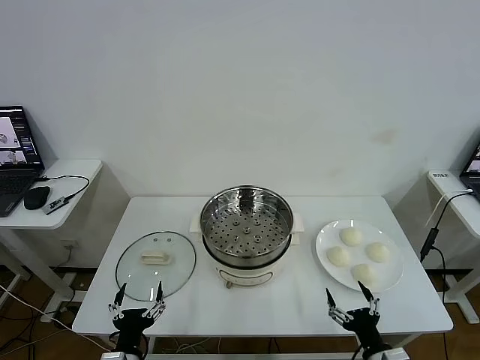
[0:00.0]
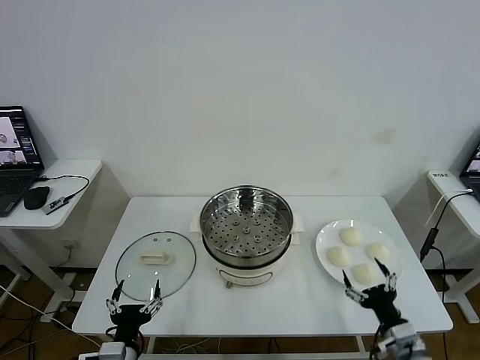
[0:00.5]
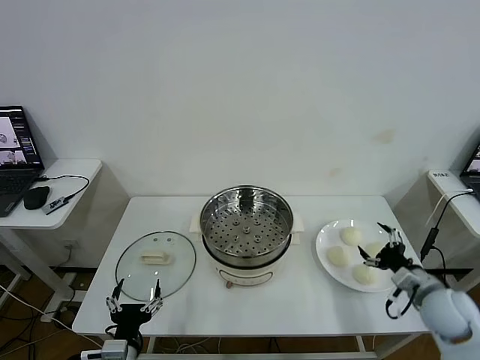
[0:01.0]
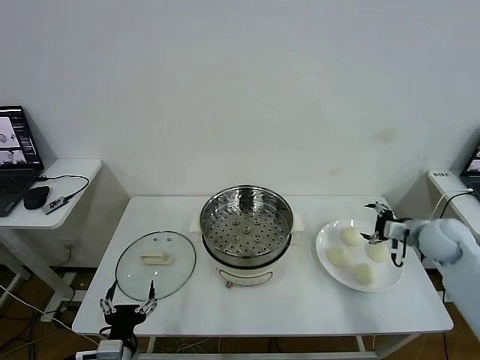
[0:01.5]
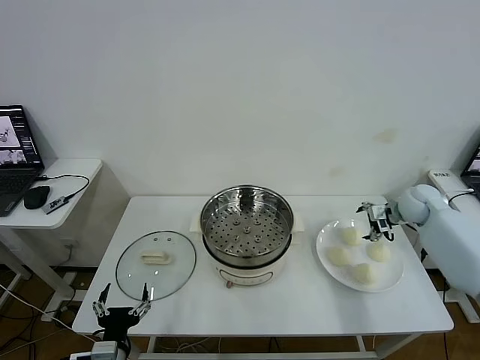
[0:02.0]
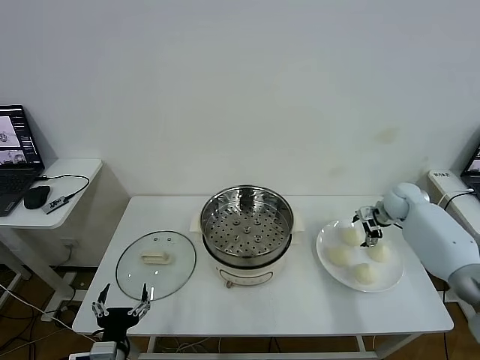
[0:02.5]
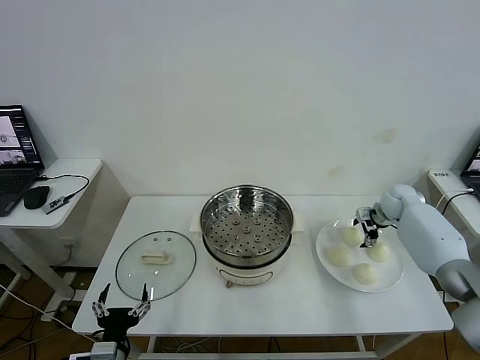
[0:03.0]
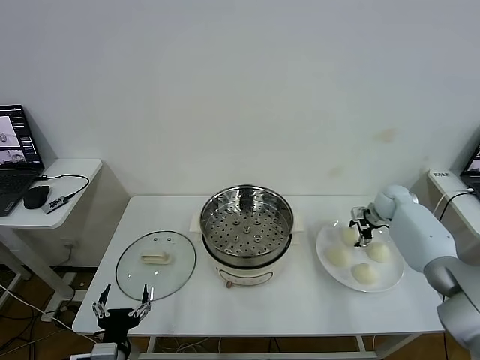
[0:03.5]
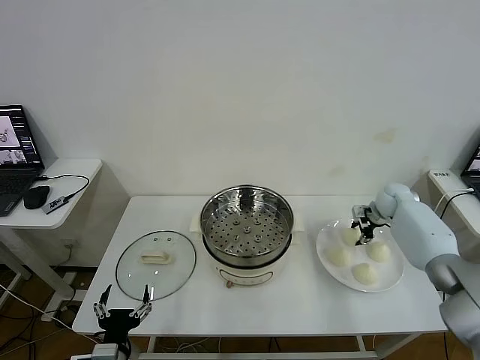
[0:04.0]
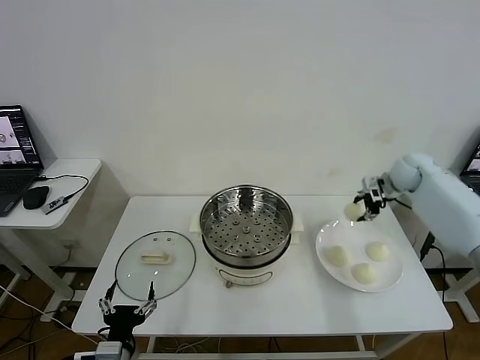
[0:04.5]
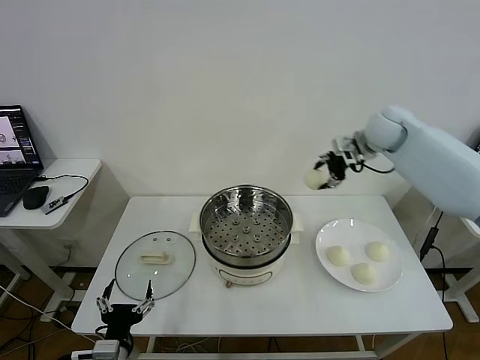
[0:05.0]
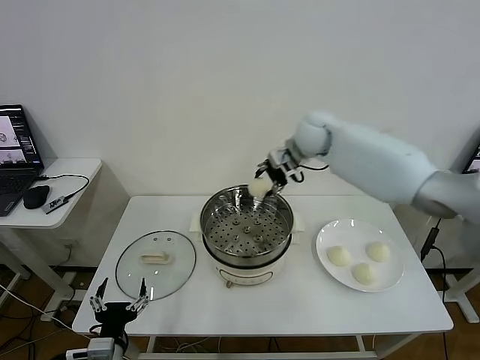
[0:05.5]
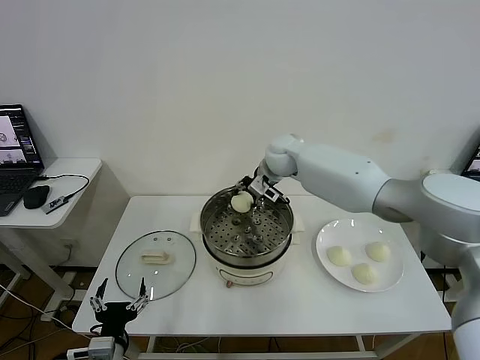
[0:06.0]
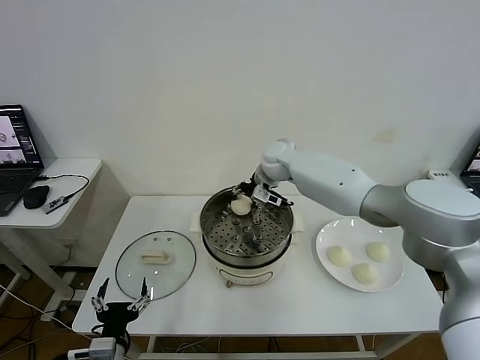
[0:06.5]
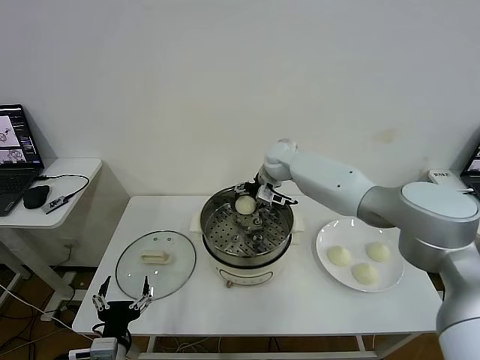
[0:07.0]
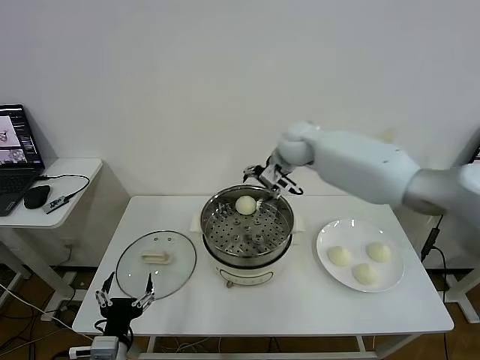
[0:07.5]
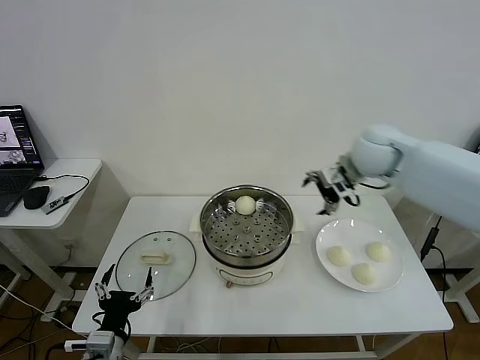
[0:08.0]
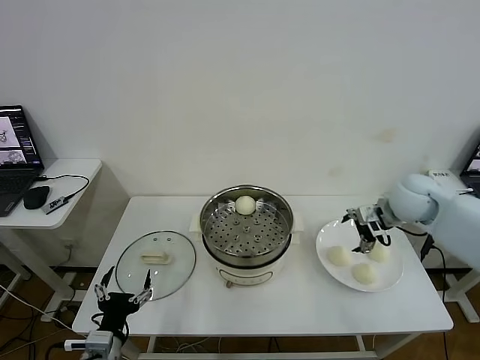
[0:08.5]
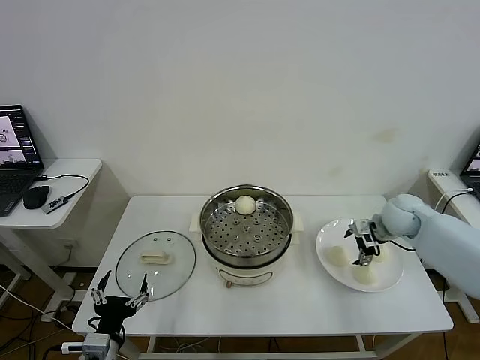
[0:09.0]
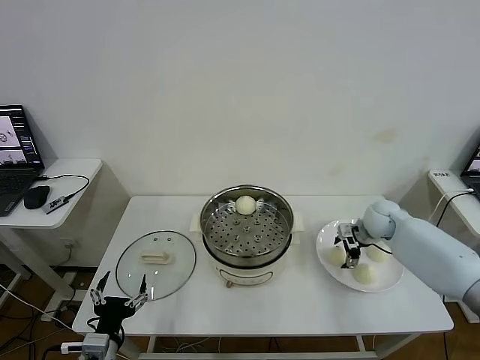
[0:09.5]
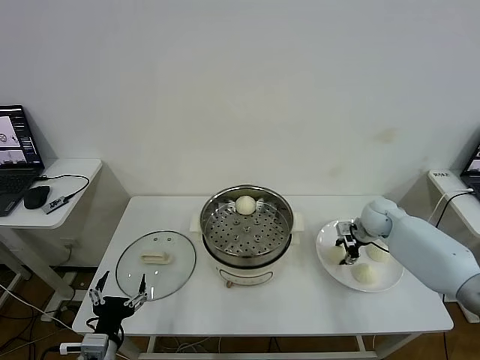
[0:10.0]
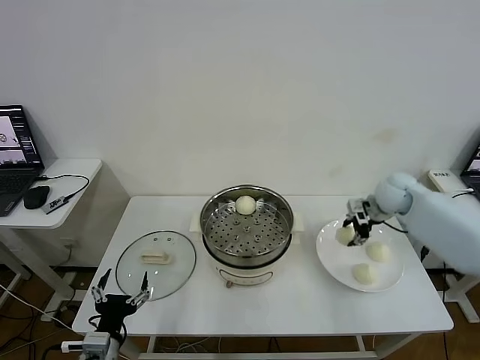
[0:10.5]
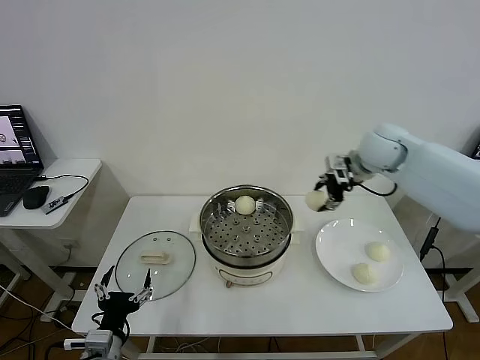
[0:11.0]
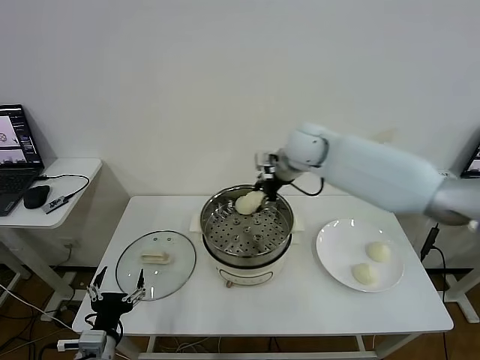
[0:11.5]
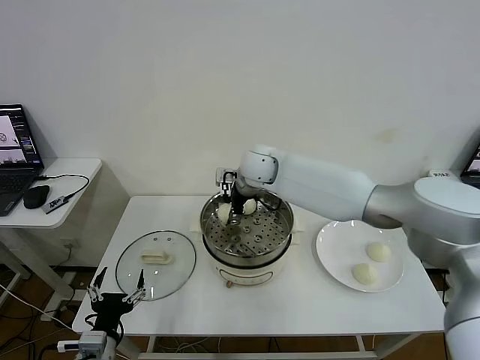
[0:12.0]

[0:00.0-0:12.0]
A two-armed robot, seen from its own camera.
Task of the whole recording: take steamed baozi put them in steamer then cover it.
Step, 0.0 to 3.5 s: Grasp the baozi in the plate with right gripper.
Step, 4.0 to 7.0 s: Place the baozi on the steamer with right gripper.
Step, 7.5 to 10.0 s: Grasp the baozi in the plate with right gripper.
2.0 to 4.0 s: The right gripper closes up.
4.0 to 6.0 s: The right gripper moves to the left, about 35 cm.
6.0 to 8.0 s: The right gripper moves to the right and backward, about 25 cm, and opens its fingers.
8.0 to 10.0 s: The right gripper moves downward, roughly 20 cm, and closes.
10.0 to 12.0 s: The right gripper moves to the left and upward, some 35 cm.

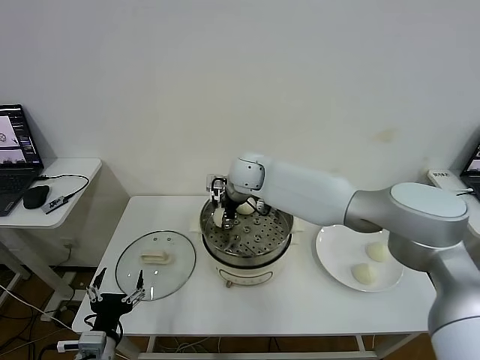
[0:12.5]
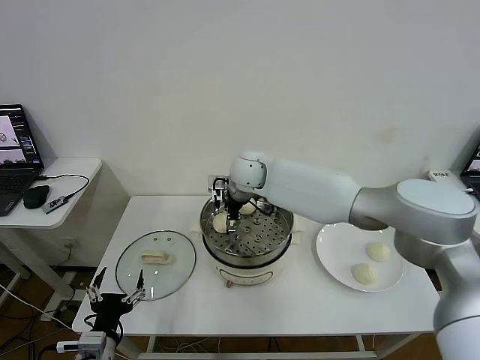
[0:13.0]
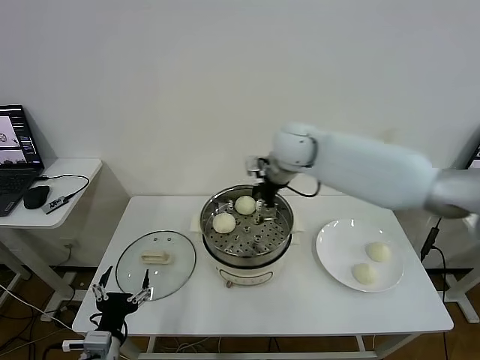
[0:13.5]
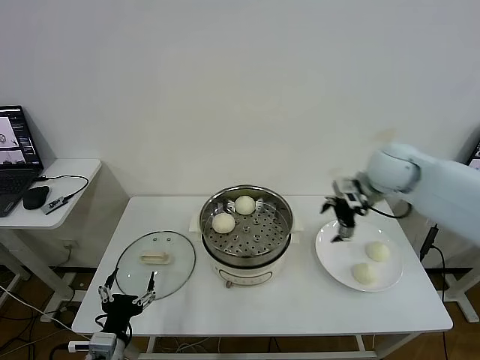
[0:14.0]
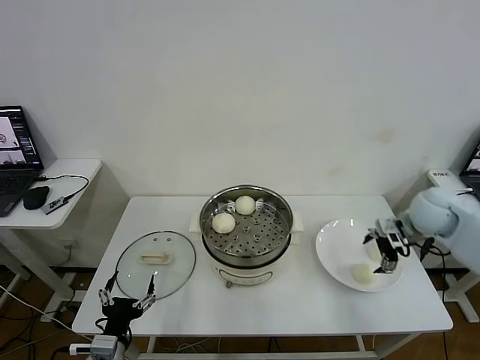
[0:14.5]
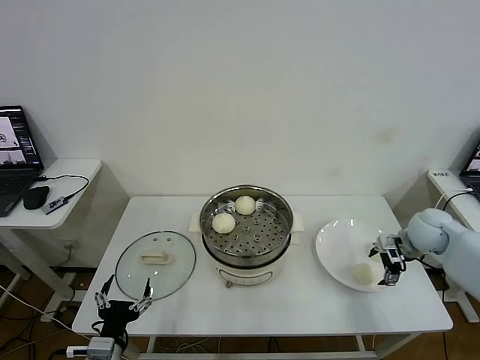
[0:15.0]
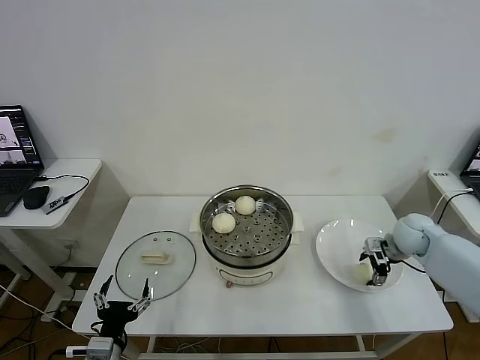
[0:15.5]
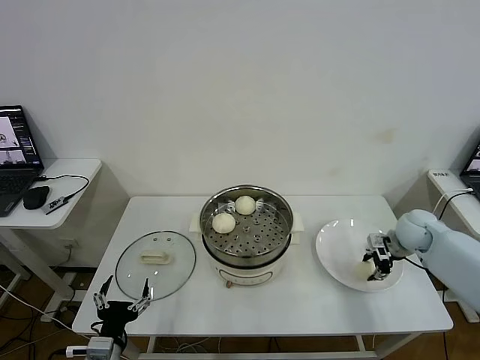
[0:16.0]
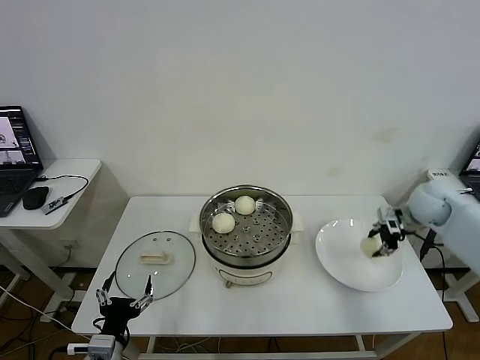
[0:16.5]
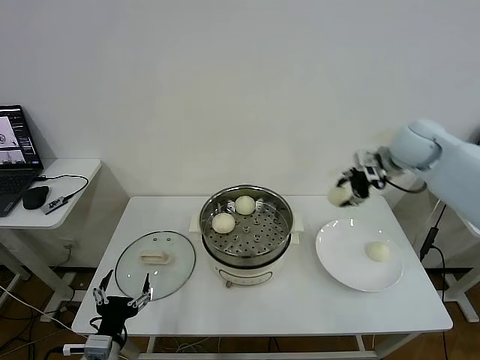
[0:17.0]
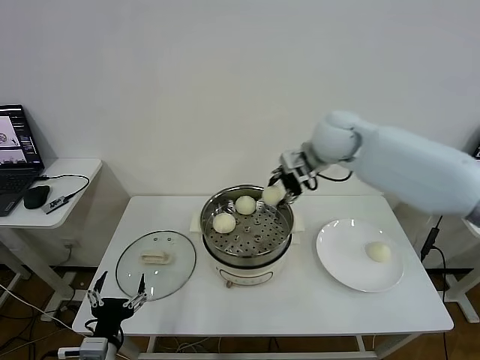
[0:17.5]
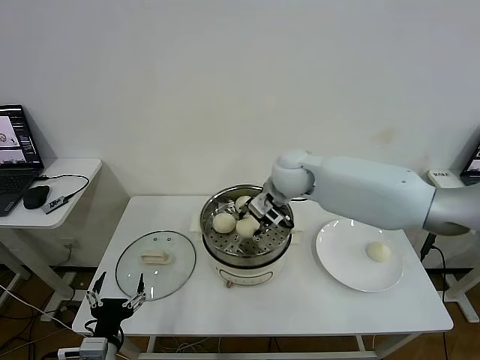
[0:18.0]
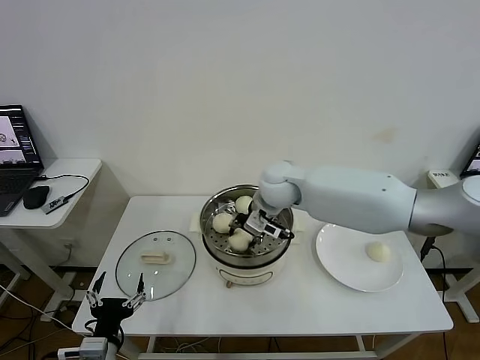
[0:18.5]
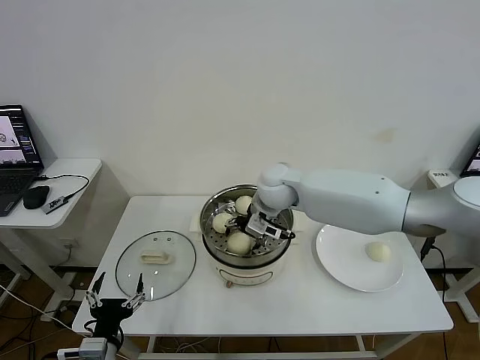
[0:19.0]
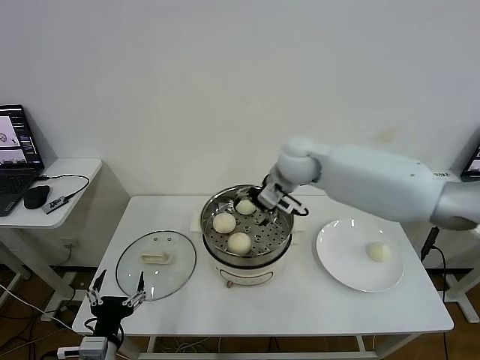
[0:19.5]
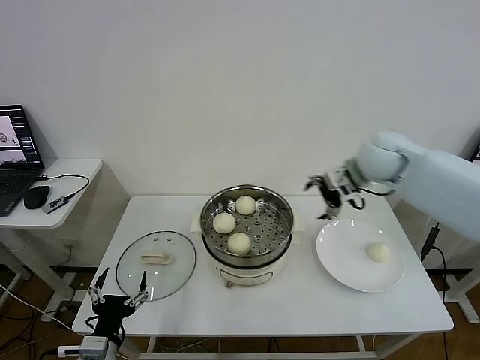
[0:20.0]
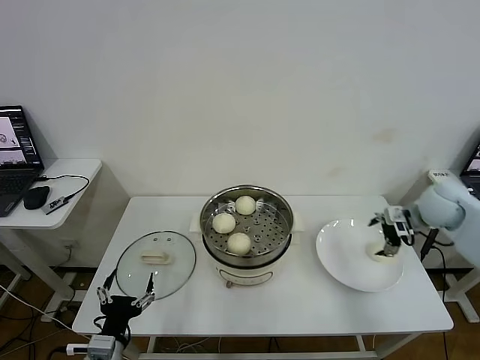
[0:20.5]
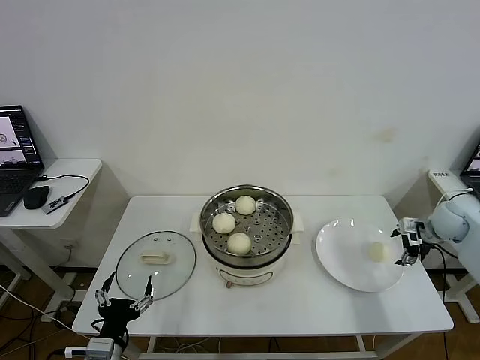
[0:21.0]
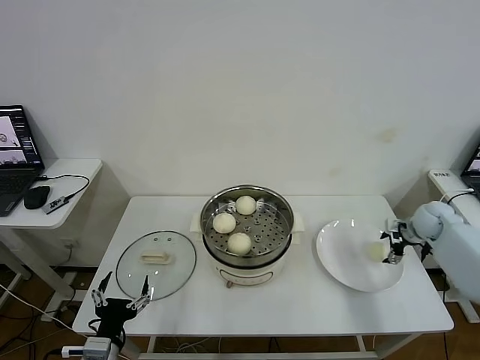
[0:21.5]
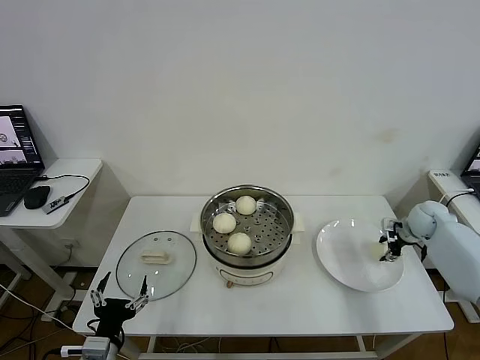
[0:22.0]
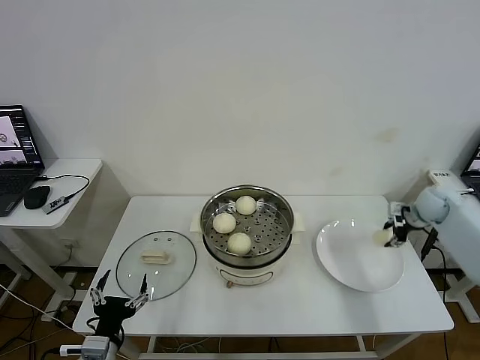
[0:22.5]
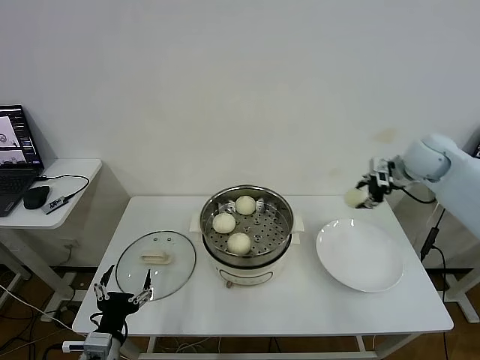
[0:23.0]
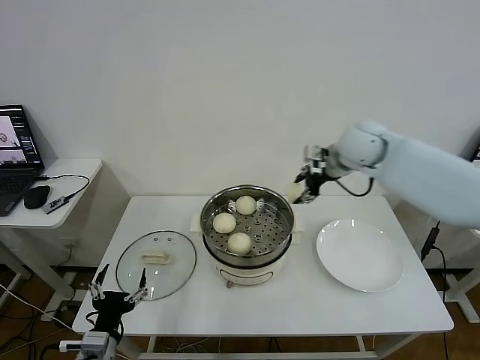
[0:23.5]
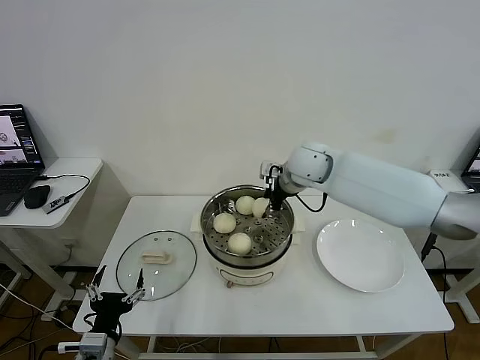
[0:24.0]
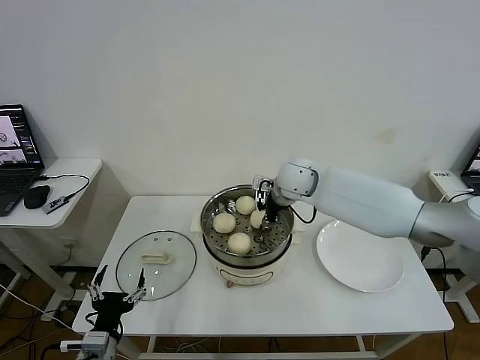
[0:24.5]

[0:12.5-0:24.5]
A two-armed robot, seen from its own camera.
Task of the whole recording: take steamed baozi put them in steamer then cover it.
Step, 13.0 to 15.5 s: Grasp the baozi in the plate with right gripper.
Step, 16.5 to 19.0 s: Place the baozi on the steamer with right gripper.
Step, 19.5 to 22.0 s: Grasp the baozi in the plate with right gripper.
12.5 to 14.5 s: The right gripper moves to the right, roughly 40 cm, and opens its fingers.
14.5 to 16.5 s: The right gripper reaches some 10 cm downward, then returns, and closes.
16.5 to 18.5 s: The right gripper moves to the left, some 35 cm.
18.5 to 20.5 s: The right gripper shifts some 35 cm to the right, and opens.
20.5 to 22.5 s: The right gripper travels forward by some 5 cm, goes downward and returns, about 10 cm each way, and closes.
22.5 to 24.5 s: The right gripper heads to the left, covering roughly 35 cm.

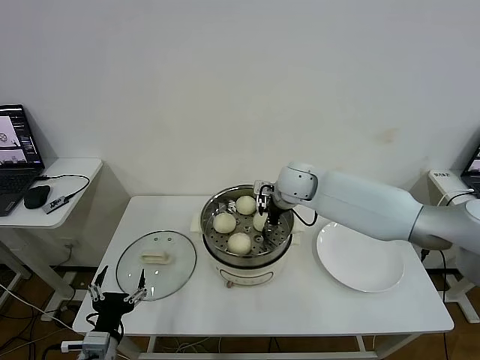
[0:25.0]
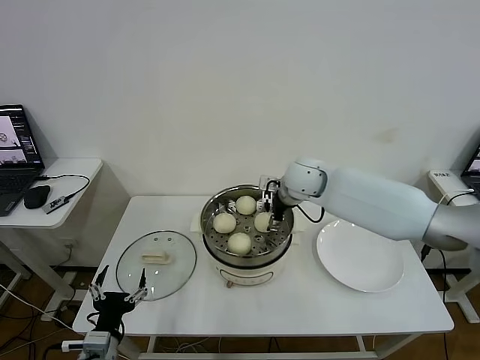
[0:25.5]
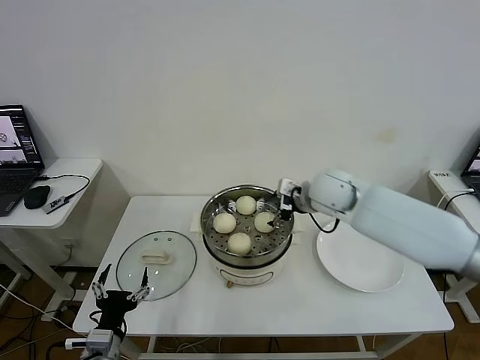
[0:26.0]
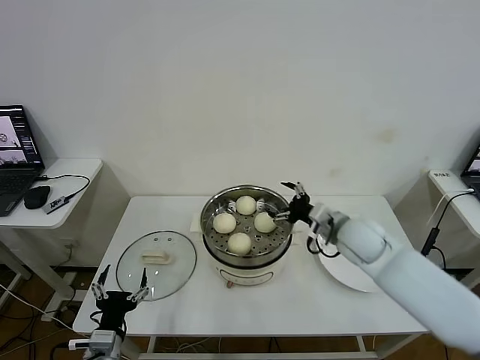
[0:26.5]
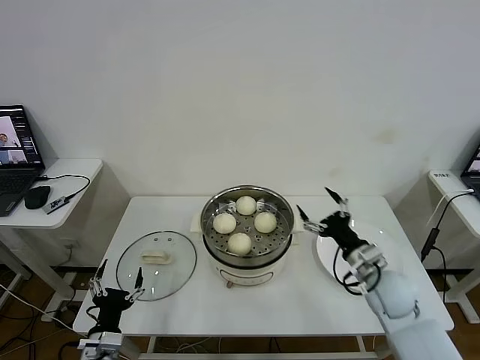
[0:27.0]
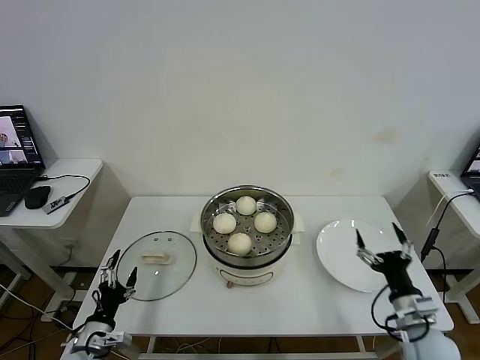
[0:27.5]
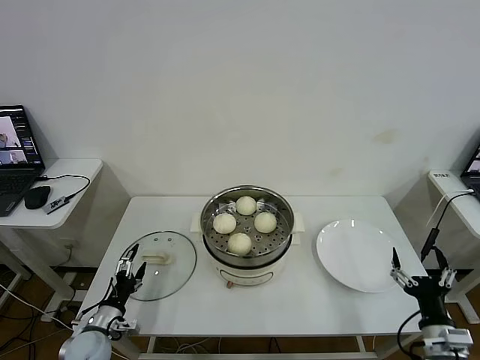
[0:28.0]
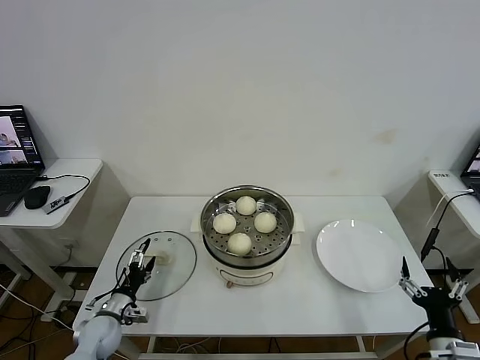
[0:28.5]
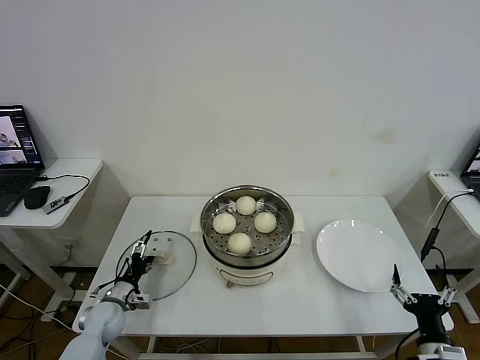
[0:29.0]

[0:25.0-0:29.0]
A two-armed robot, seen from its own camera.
Task of the whole recording: take steamed baozi put them in steamer then cover it.
25.0 to 27.0 s: The right gripper goes roughly 30 cm backward, to the right and downward, and opens.
27.0 to 29.0 s: The left gripper shifts approximately 20 cm forward and downward, while the right gripper shifts roughly 20 cm backward.
